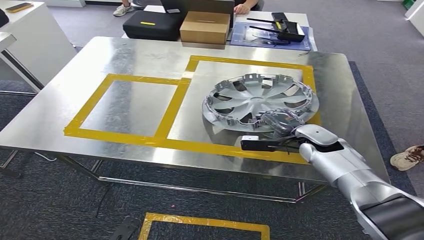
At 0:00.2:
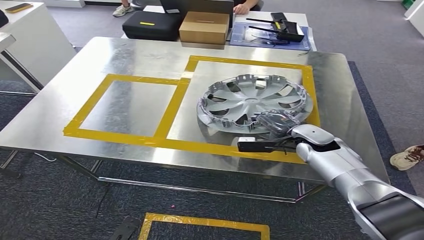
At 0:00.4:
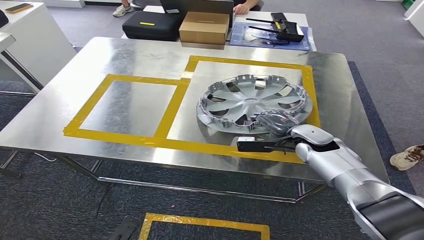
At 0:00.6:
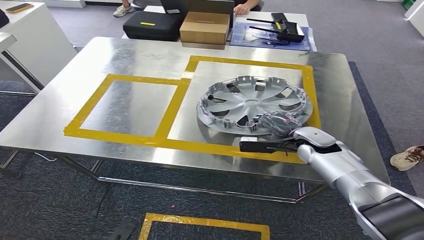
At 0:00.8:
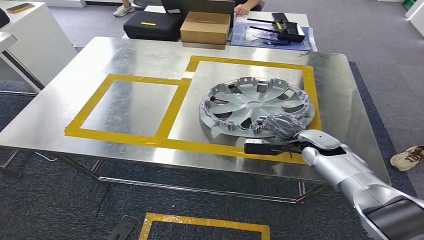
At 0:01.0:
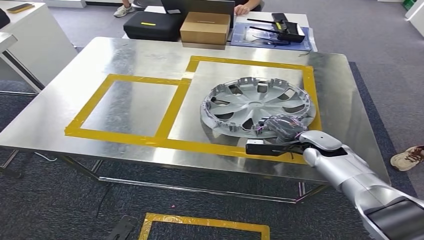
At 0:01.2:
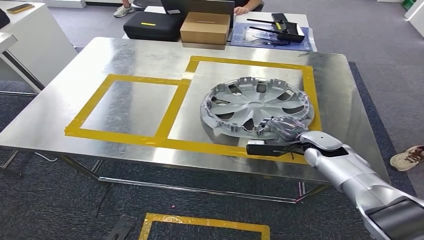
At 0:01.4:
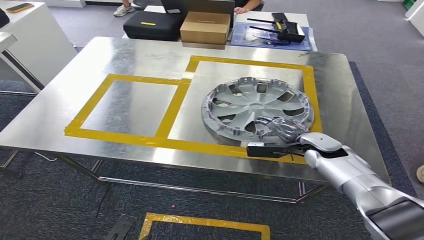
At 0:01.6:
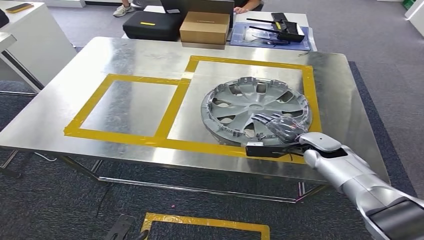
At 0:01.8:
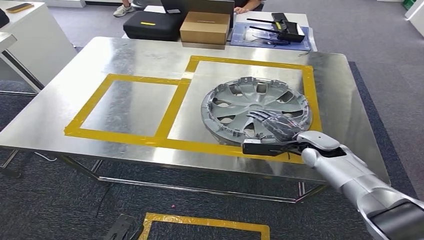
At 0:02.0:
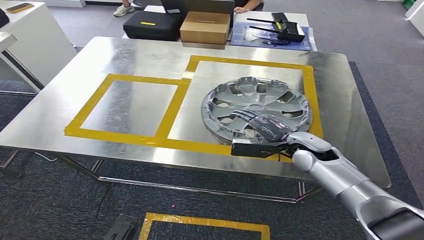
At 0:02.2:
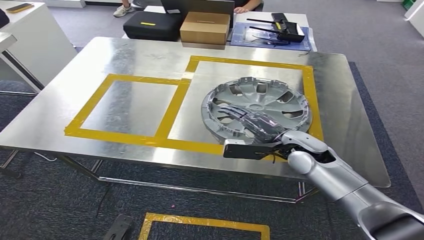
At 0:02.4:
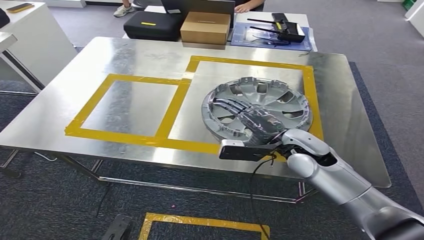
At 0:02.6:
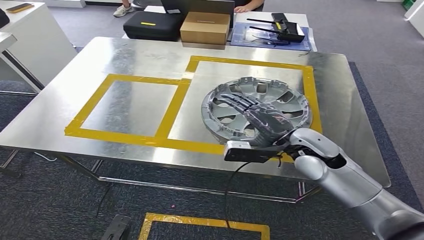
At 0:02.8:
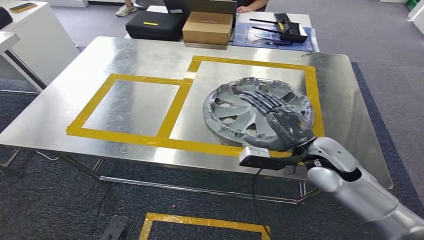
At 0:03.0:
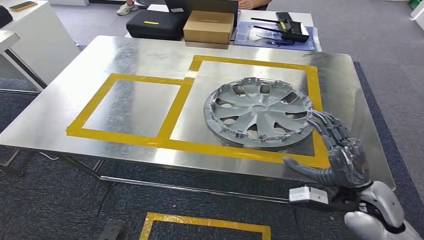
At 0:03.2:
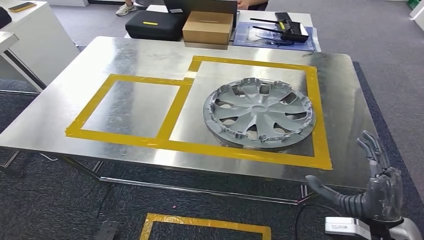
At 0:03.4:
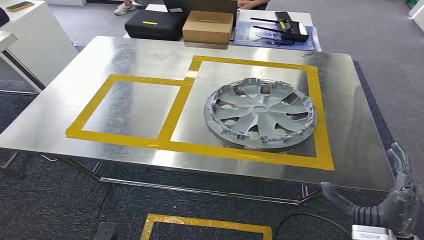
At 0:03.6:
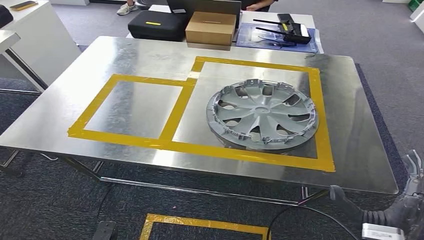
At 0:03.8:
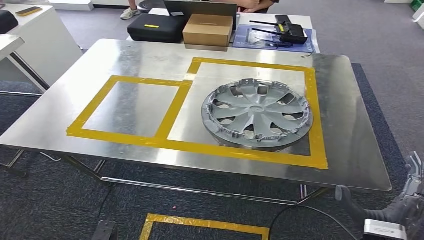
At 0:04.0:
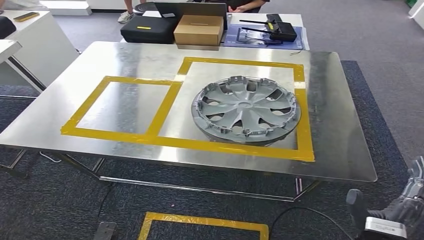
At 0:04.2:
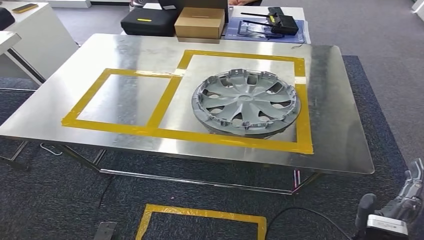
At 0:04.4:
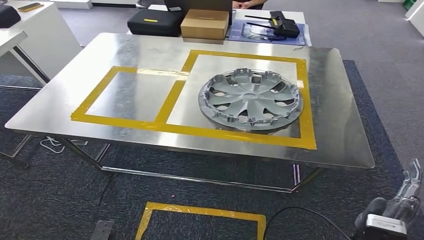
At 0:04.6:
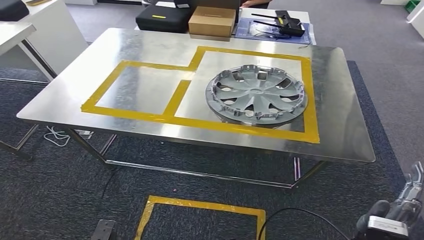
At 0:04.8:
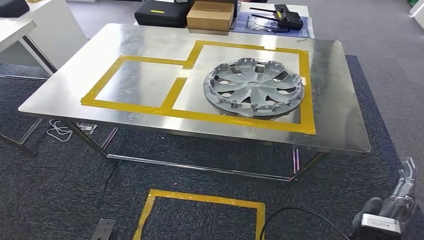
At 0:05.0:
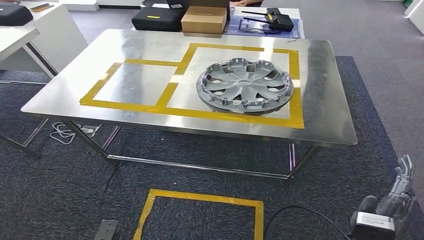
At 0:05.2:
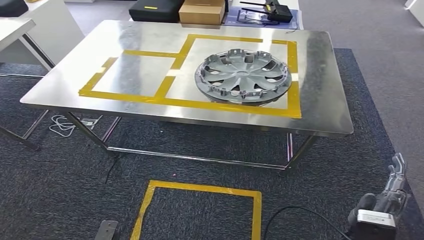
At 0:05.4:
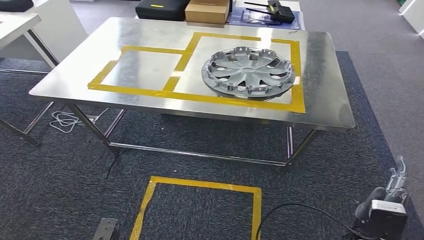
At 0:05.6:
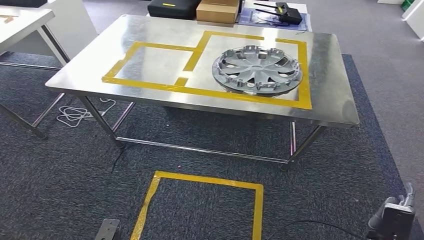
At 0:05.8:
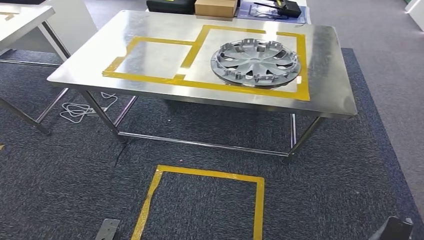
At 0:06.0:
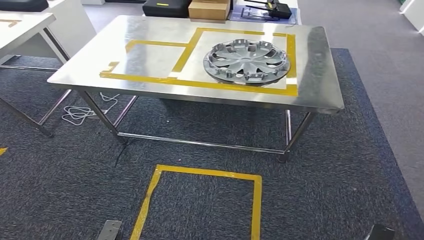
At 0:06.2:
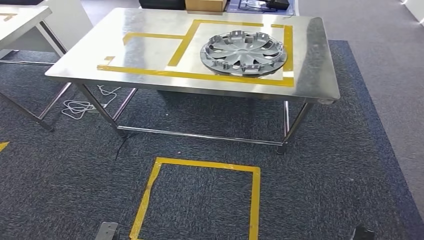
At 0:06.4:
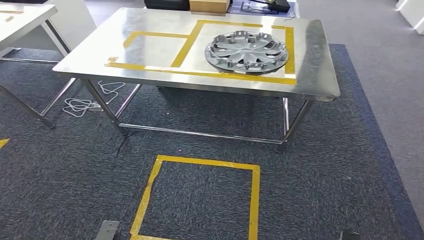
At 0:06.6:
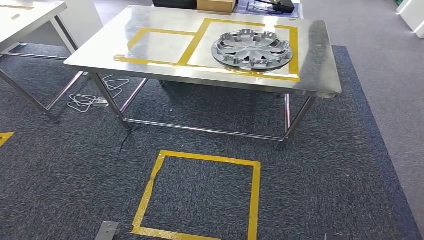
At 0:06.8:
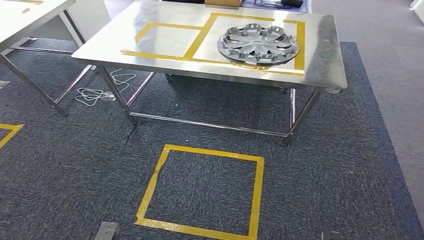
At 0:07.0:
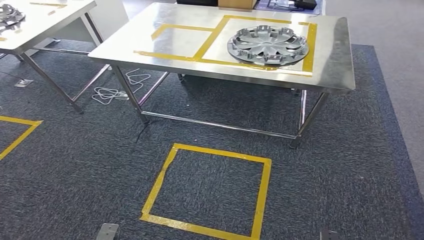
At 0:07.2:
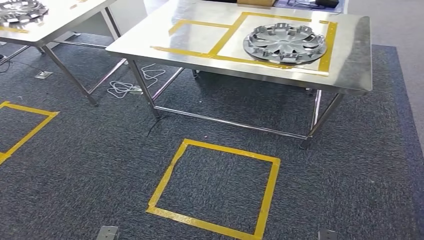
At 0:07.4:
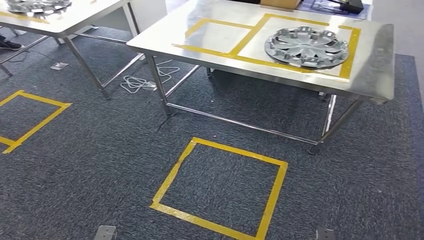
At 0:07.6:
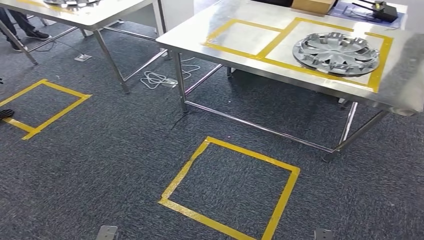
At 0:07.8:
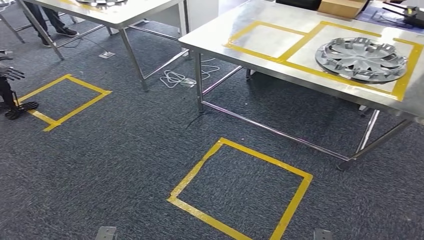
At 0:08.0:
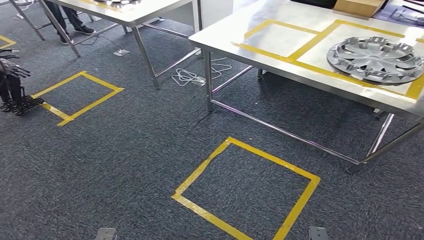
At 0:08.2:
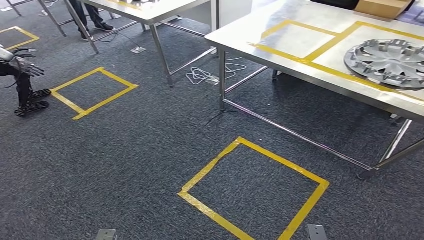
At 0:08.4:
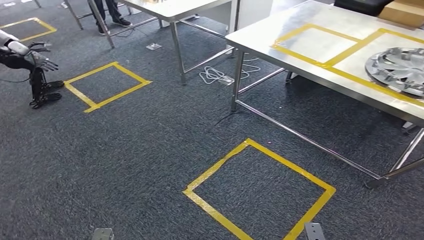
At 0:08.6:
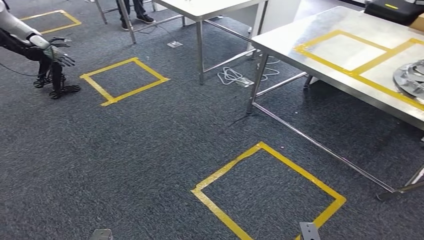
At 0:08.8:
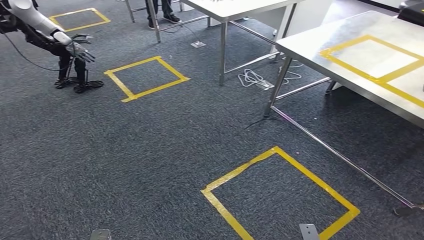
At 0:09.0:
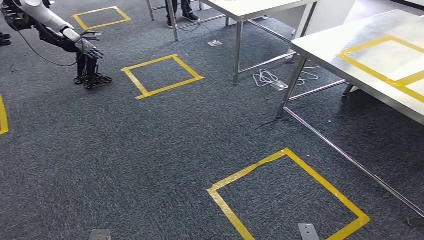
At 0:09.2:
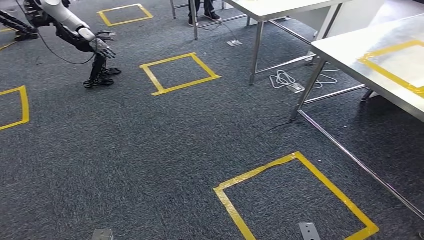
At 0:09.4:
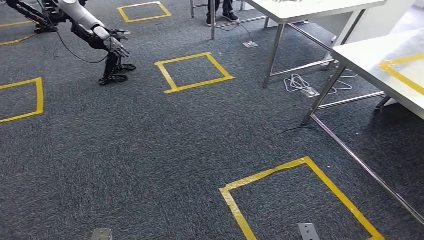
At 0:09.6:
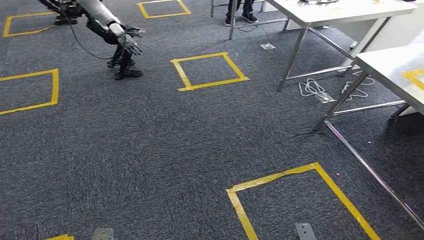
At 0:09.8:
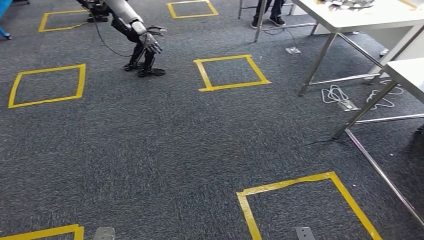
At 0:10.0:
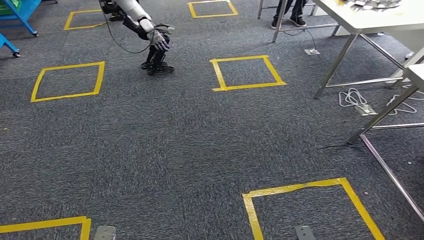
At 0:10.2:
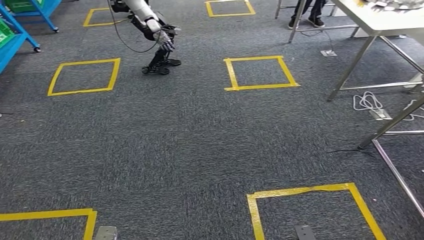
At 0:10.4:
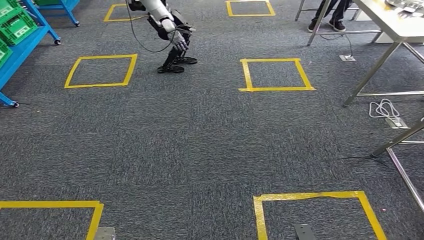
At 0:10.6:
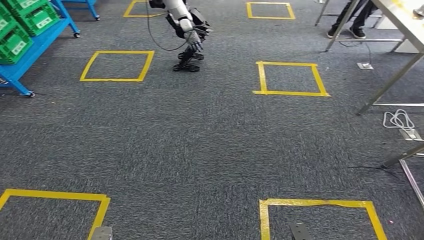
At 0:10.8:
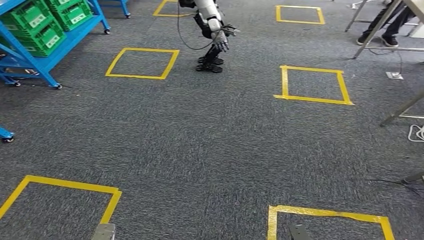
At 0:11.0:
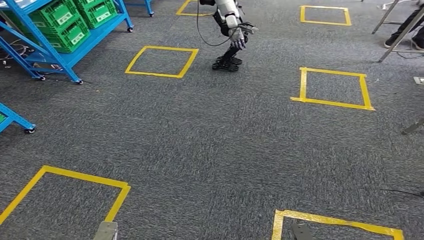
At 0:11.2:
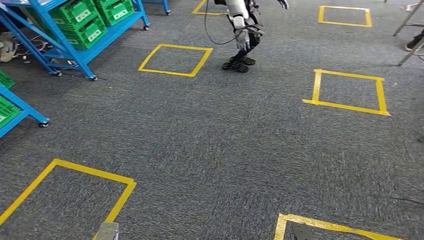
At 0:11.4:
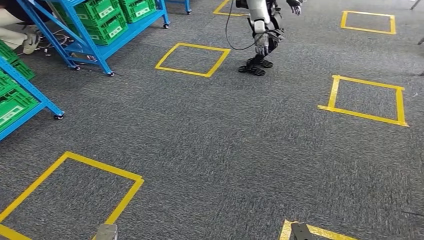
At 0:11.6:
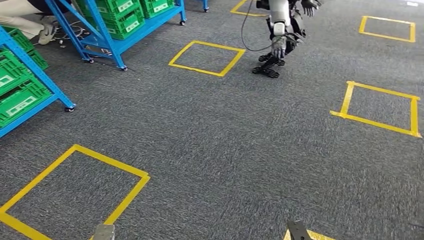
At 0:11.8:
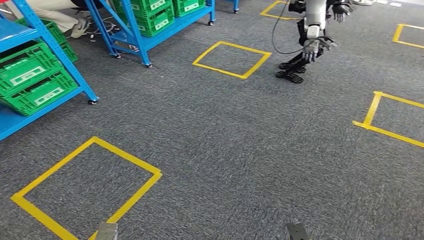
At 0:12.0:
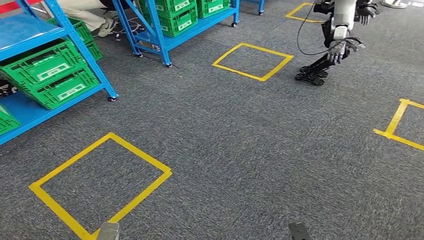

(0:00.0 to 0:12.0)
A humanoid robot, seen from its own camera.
Step, 0:00.0 - 0:02.6: Insert the small parts into the corresponding holes on the workbench.
0:00.0 - 0:01.6: The hands make only small movements.
0:01.6 - 0:03.0: The right hand travels backward by some 15 cm.

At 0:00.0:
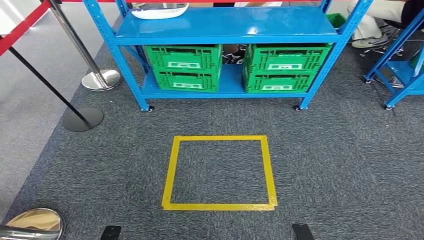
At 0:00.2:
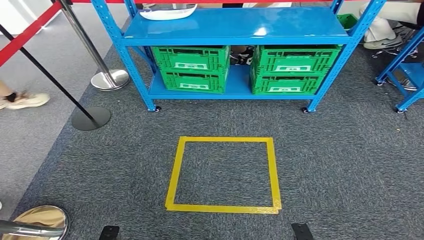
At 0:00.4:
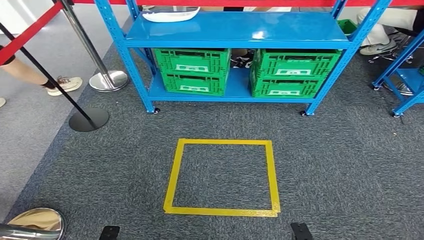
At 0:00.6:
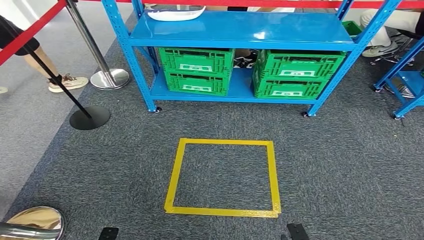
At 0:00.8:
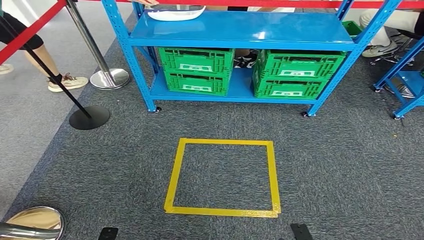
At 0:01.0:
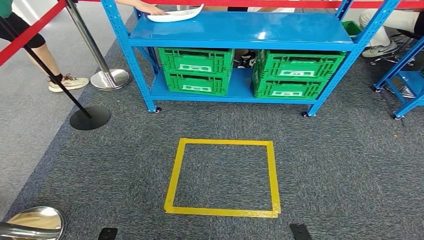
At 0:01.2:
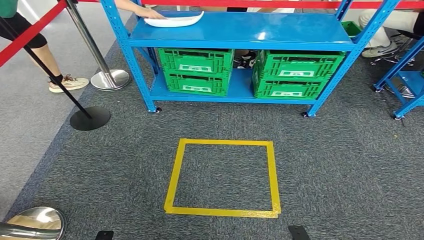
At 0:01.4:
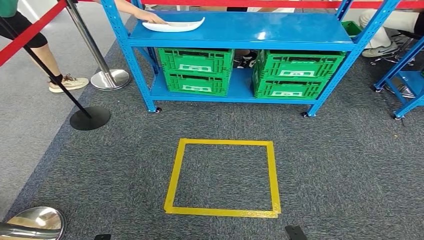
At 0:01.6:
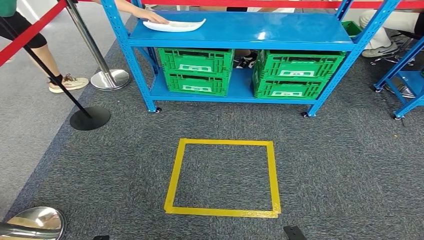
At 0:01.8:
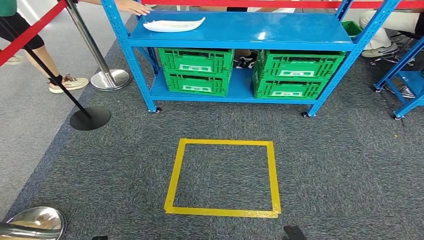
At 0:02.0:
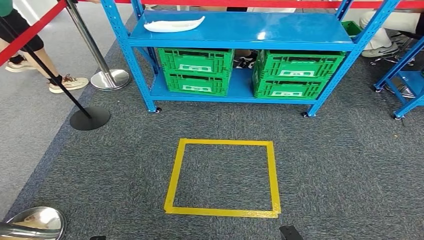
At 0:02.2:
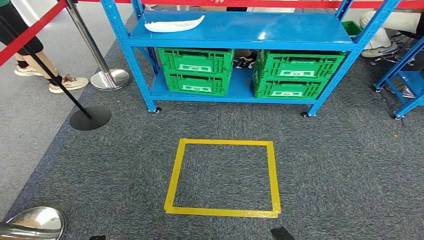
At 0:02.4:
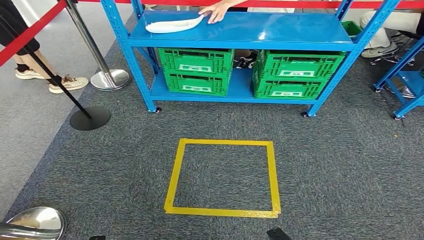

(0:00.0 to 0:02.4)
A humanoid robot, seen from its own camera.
Step, 0:00.0 - 0:02.4: Move to the initial position of the workbench.
0:01.2 - 0:02.4: There are only small adjustments of the hands.
